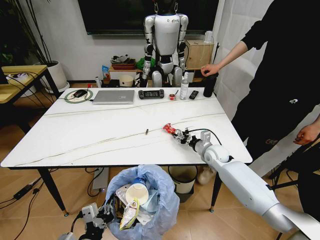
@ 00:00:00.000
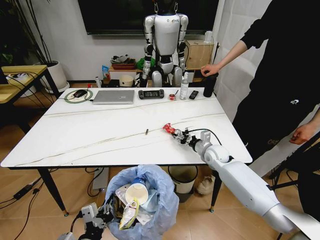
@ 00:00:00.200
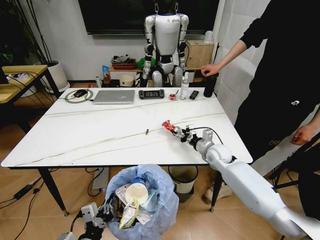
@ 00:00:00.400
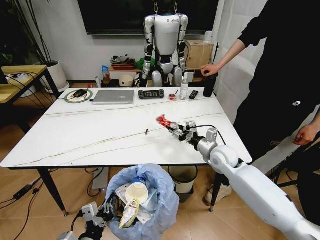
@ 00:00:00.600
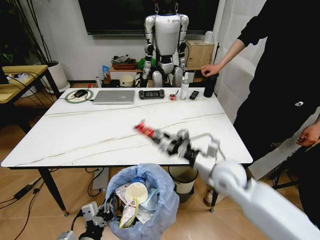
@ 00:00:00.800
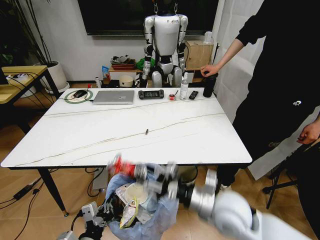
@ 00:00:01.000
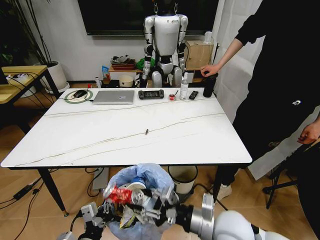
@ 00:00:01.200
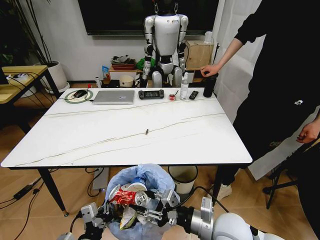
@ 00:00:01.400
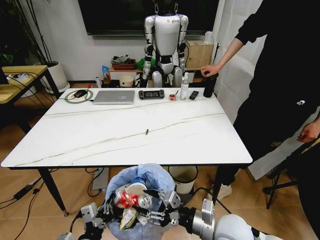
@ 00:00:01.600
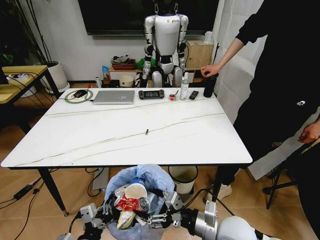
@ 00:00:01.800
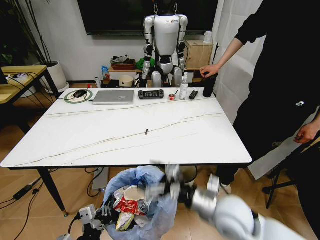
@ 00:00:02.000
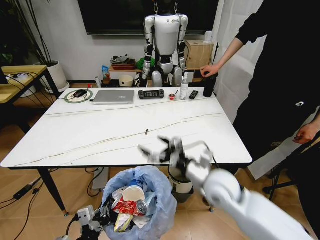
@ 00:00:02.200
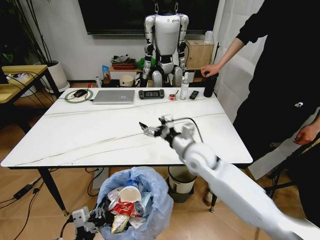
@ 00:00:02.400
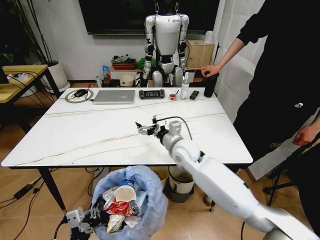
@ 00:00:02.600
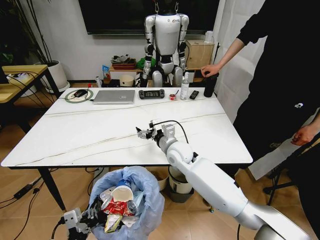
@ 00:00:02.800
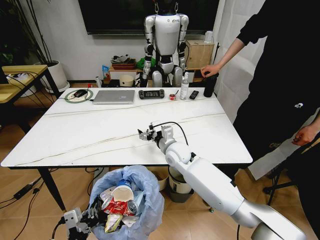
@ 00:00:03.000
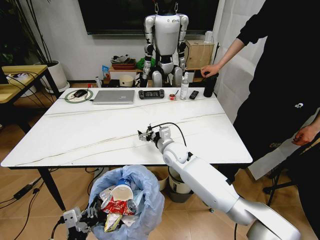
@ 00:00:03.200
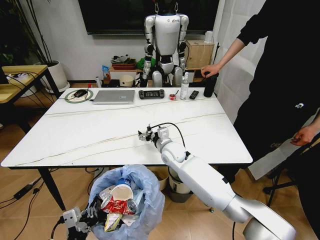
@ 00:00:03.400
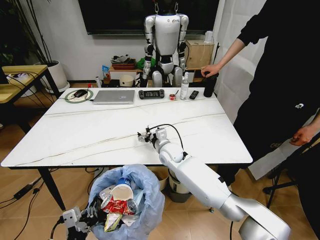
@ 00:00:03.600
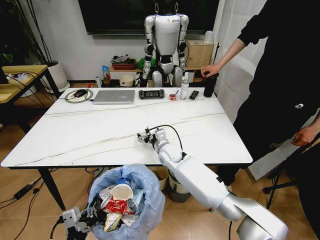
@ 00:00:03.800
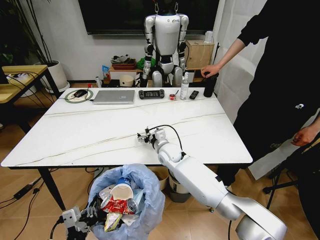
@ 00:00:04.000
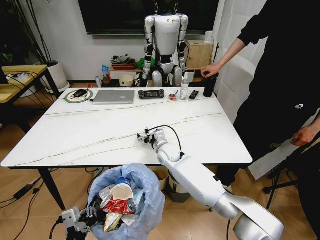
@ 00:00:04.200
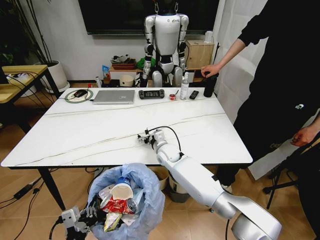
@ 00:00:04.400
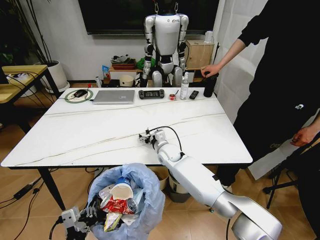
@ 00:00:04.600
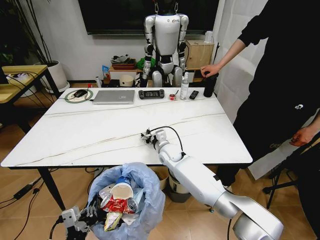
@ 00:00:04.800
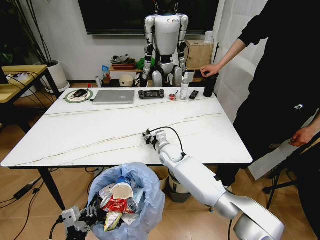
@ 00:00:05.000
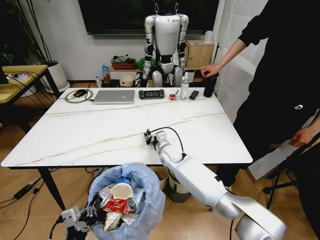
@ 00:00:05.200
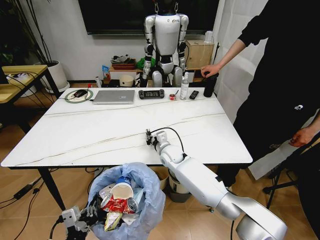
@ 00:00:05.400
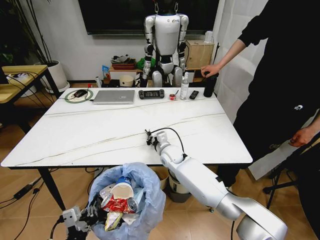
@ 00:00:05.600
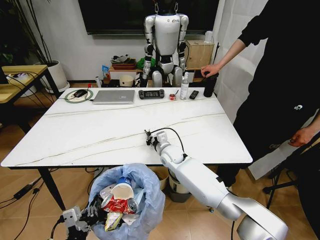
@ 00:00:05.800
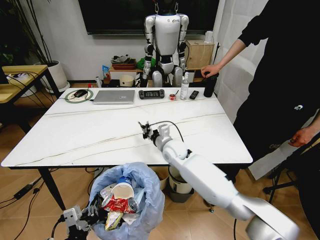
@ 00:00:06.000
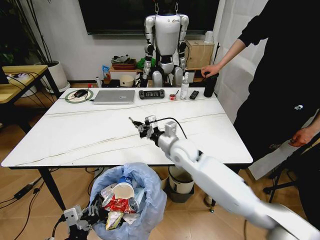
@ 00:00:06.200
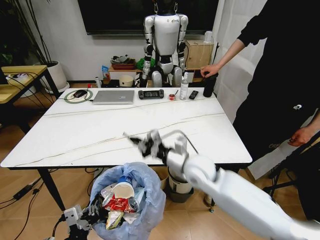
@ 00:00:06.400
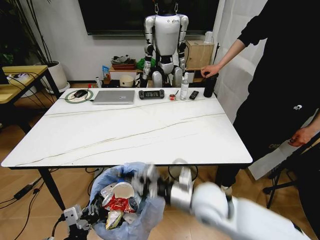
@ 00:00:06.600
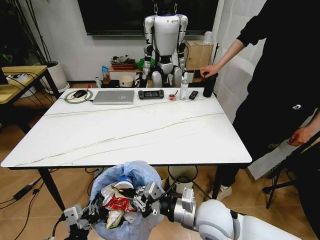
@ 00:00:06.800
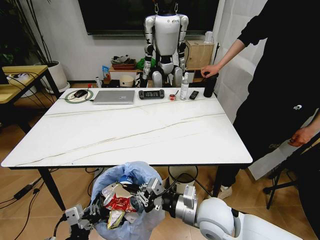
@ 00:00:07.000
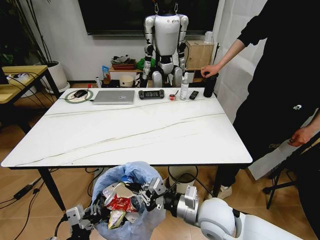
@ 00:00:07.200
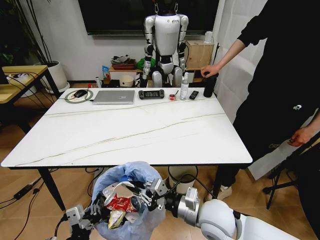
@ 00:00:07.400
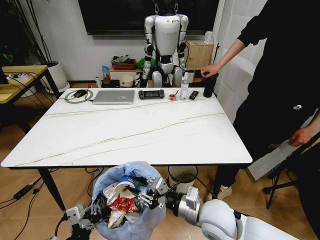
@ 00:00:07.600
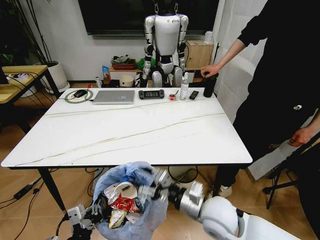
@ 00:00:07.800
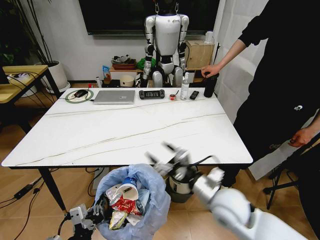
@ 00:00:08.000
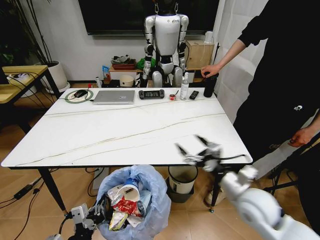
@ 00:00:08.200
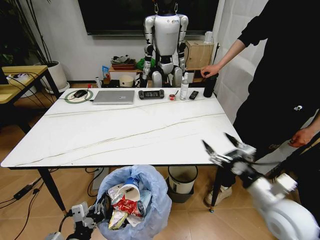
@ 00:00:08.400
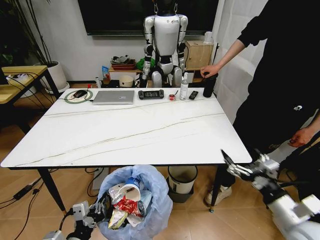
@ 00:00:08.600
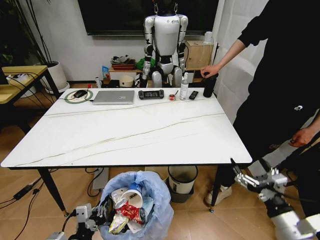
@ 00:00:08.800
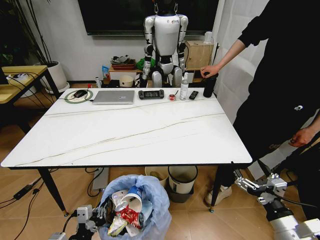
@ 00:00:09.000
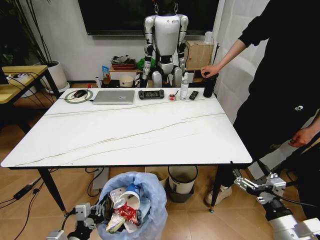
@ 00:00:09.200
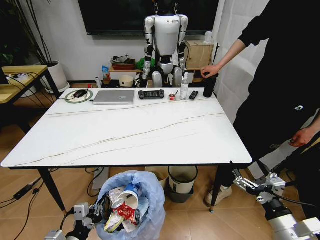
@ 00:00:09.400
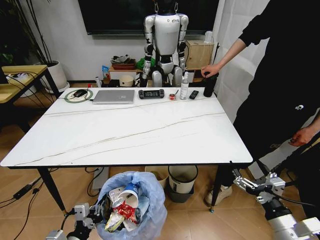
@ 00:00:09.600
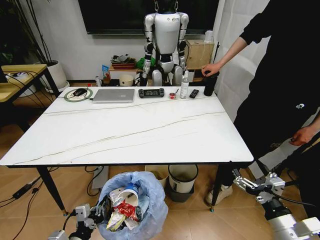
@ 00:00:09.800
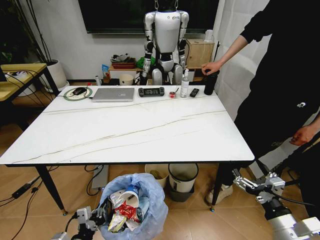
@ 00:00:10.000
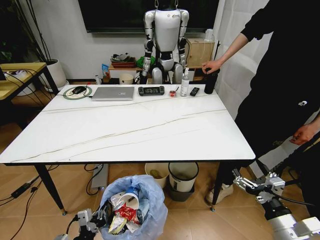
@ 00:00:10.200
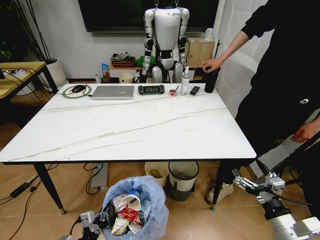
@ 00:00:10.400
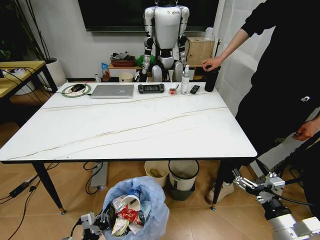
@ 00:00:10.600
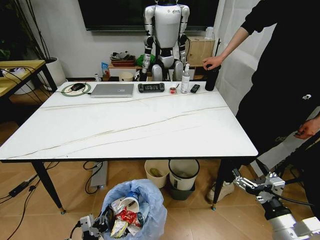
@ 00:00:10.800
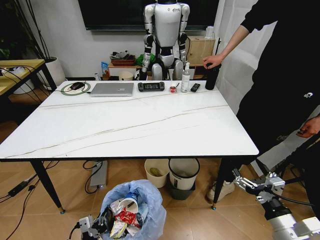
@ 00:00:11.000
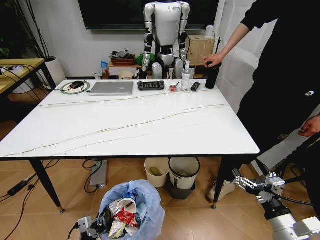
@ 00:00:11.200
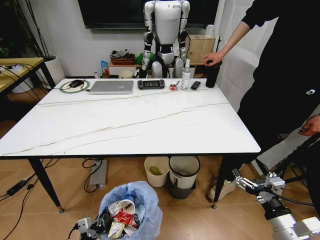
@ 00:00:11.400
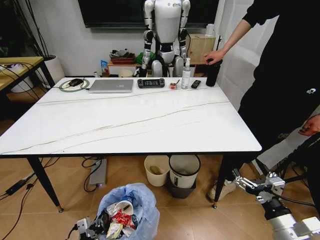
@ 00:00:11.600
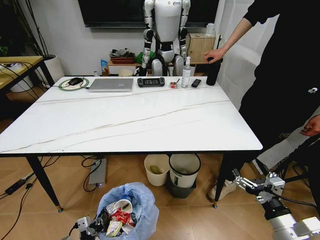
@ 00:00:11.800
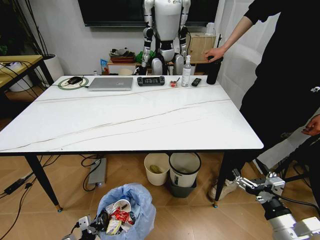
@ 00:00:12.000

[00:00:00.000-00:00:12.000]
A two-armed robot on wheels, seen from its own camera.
Task of the whole recording: Pick up the trash bin and place the trash from the table into it.
00:00:00.000 to 00:00:01.600: The right gripper shifts approximately 30 cm backward.
00:00:01.600 to 00:00:03.000: The right gripper goes roughly 30 cm forward and to the left, and opens up.
00:00:03.000 to 00:00:04.400: The right gripper goes roughly 5 cm downward.
00:00:04.400 to 00:00:06.000: The right gripper moves upward, some 5 cm, and closes.
00:00:06.000 to 00:00:07.600: The right gripper shifts about 25 cm backward.
00:00:07.600 to 00:00:09.000: The left gripper shifts by about 5 cm. The right gripper goes roughly 25 cm to the right and backward, and opens its fingers.
00:00:09.000 to 00:00:10.400: The left gripper travels downward by approximately 5 cm.
00:00:10.400 to 00:00:12.000: The left gripper goes approximately 10 cm downward.

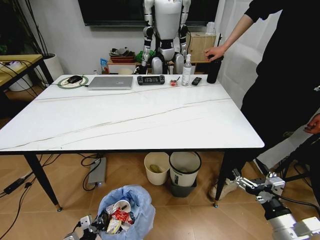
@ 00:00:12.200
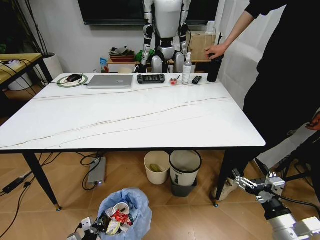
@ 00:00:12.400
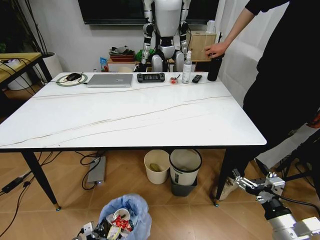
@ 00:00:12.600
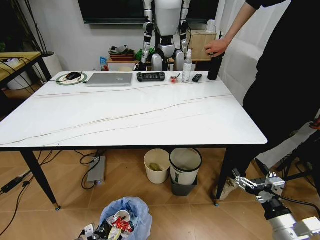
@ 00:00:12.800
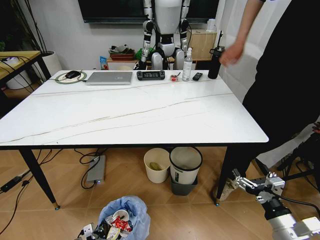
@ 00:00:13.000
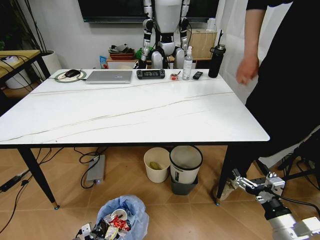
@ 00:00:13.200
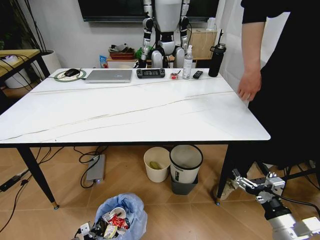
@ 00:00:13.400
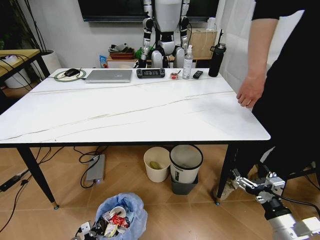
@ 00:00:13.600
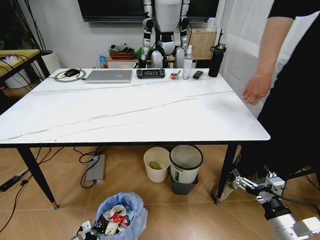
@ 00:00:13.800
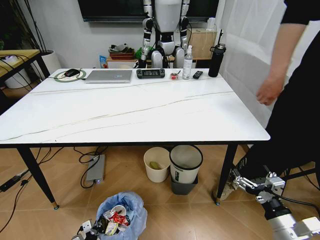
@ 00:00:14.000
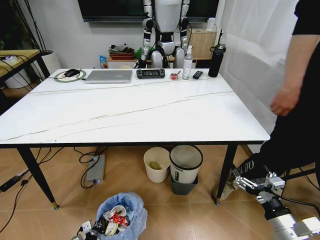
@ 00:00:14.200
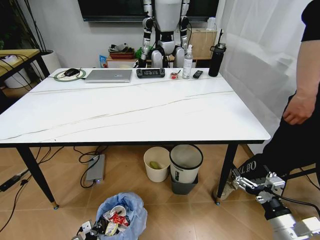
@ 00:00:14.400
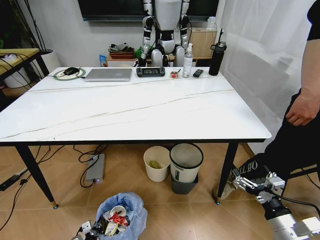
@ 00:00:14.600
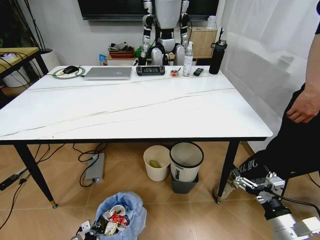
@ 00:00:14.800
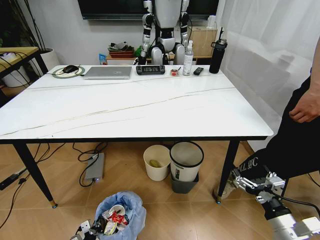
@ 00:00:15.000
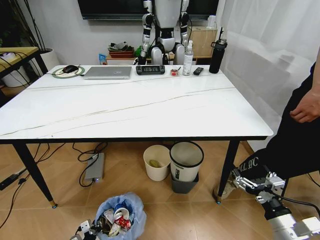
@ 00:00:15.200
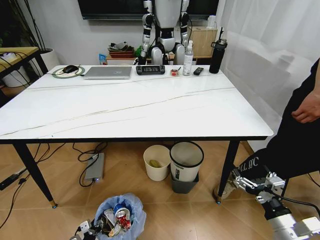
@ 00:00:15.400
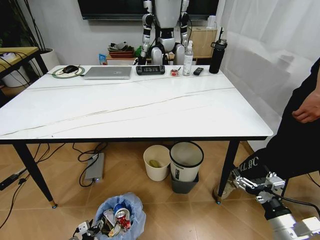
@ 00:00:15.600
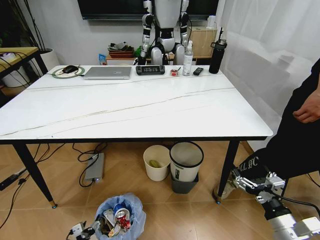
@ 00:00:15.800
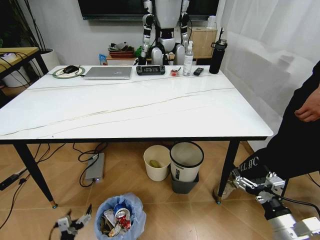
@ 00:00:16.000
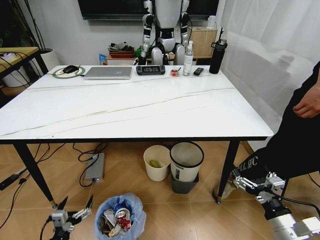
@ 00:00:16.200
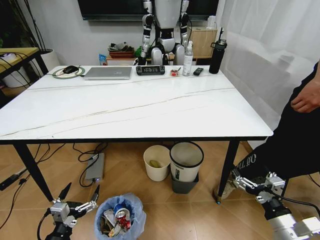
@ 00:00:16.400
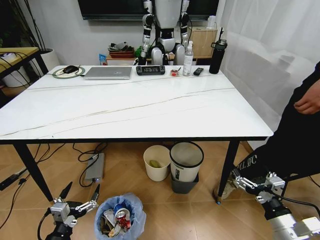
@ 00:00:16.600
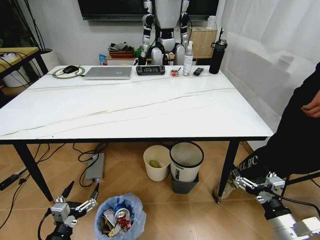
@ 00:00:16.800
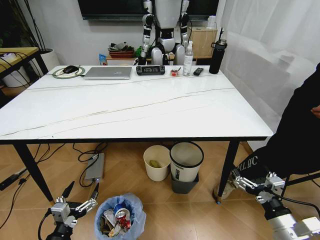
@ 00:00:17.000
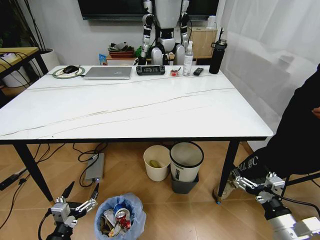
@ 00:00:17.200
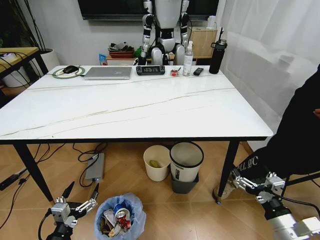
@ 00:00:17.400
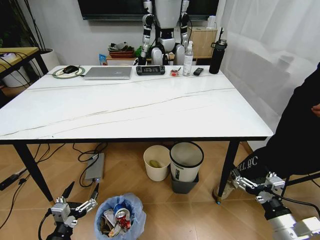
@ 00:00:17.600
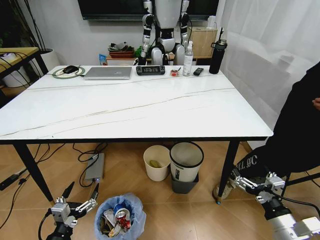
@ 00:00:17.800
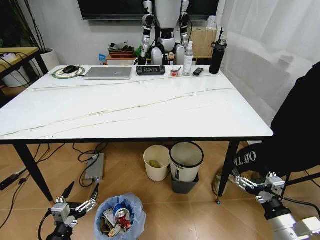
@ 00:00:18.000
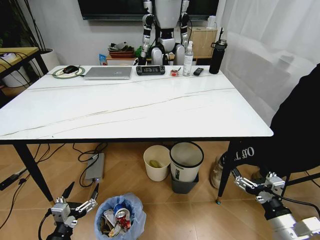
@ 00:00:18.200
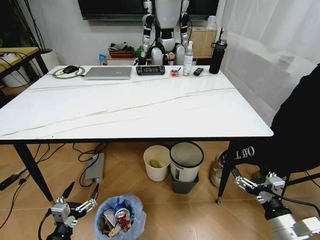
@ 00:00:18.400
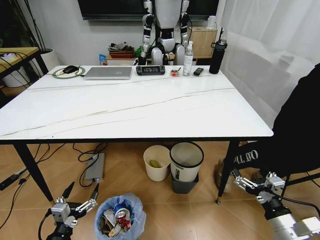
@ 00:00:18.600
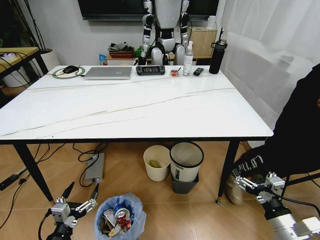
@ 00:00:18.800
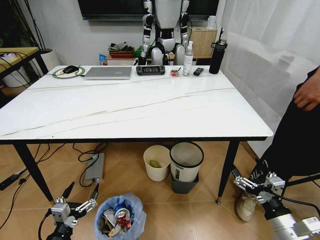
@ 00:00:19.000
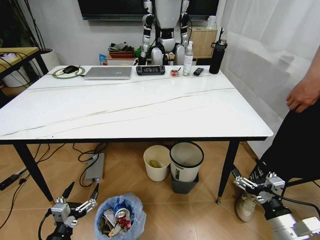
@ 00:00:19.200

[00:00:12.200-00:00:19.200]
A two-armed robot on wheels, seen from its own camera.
Task of the whole recording: Pick up the trash bin and place the trash from the table into it.
00:00:12.200 to 00:00:13.600: The left gripper shifts roughly 10 cm downward.
00:00:15.000 to 00:00:16.400: The left gripper travels upward by roughly 25 cm, and opens up.
00:00:16.400 to 00:00:19.200: Neither gripper changes place.
